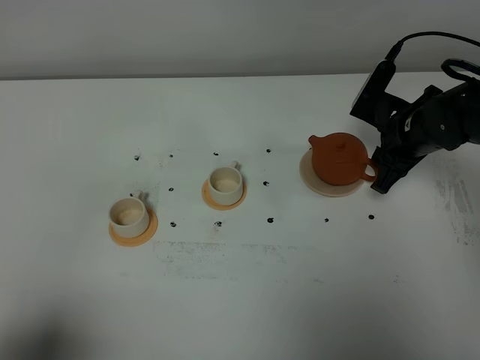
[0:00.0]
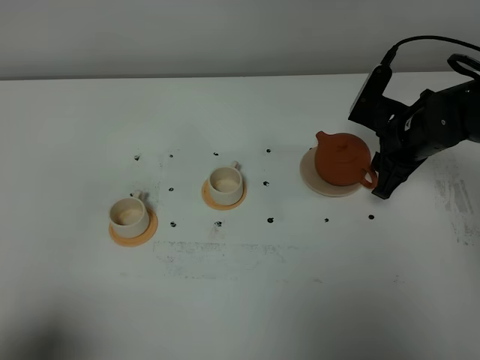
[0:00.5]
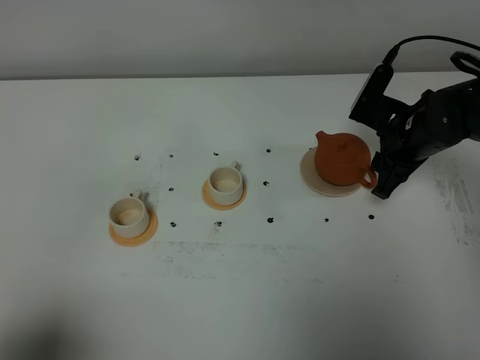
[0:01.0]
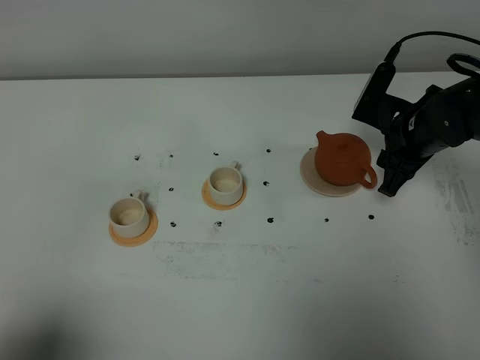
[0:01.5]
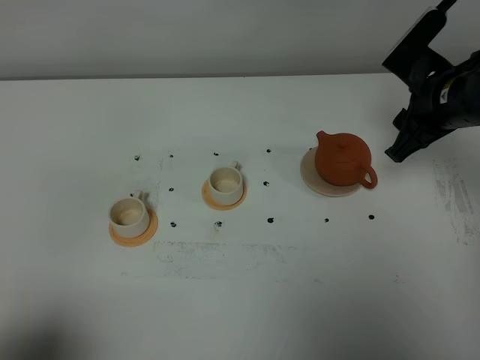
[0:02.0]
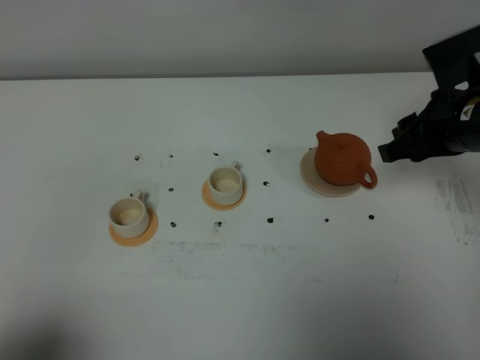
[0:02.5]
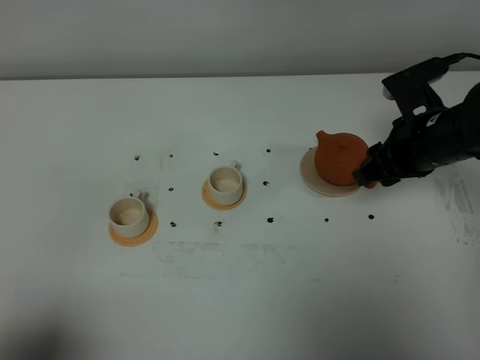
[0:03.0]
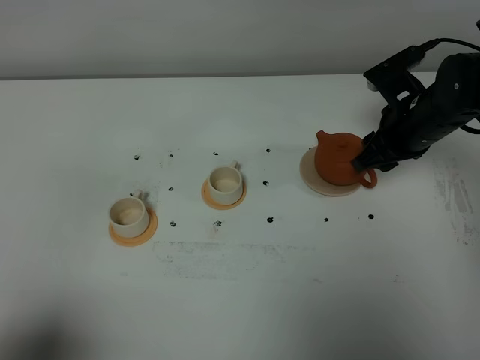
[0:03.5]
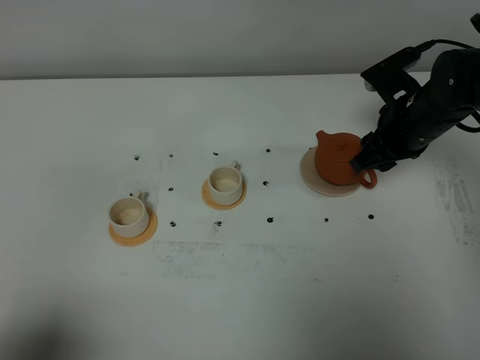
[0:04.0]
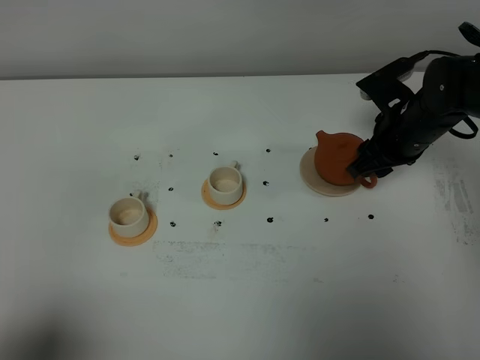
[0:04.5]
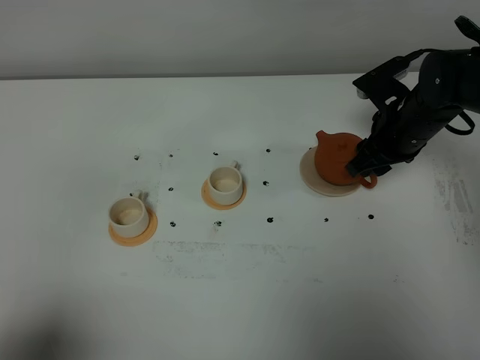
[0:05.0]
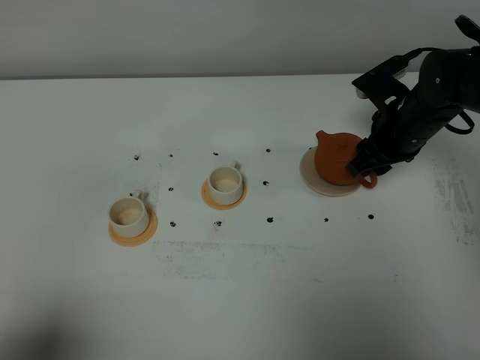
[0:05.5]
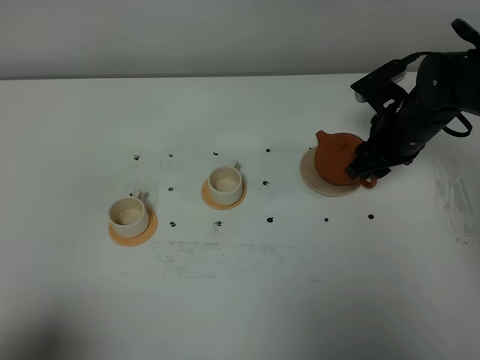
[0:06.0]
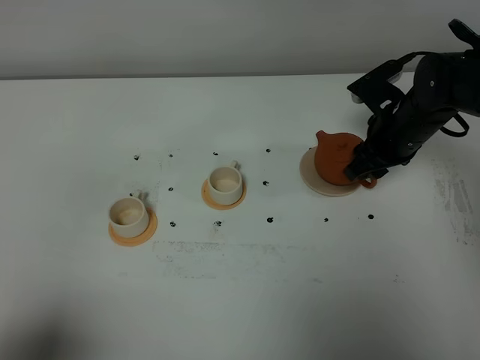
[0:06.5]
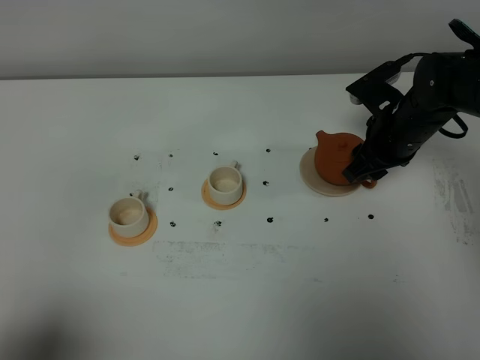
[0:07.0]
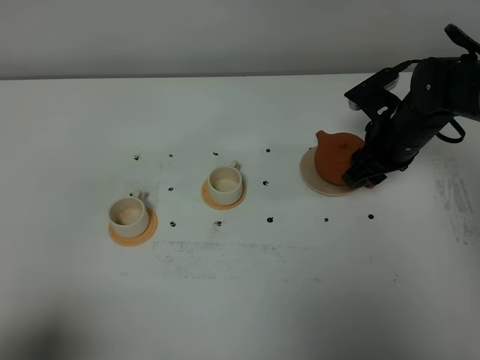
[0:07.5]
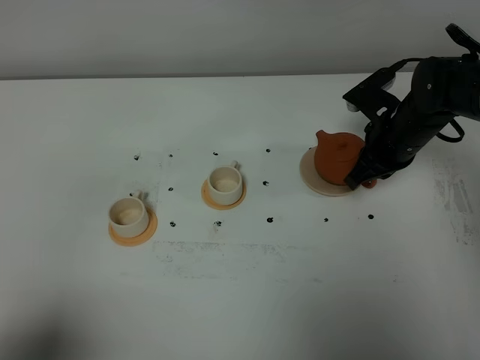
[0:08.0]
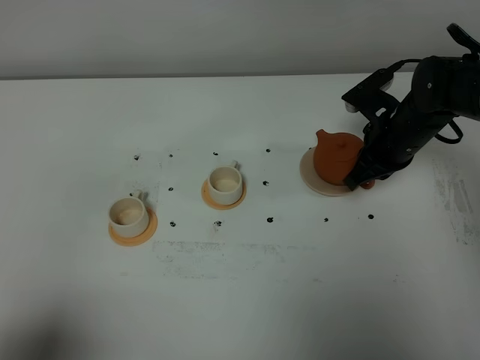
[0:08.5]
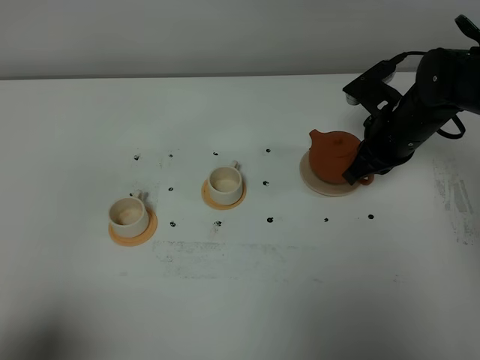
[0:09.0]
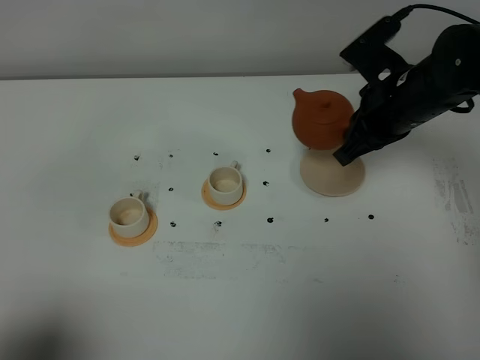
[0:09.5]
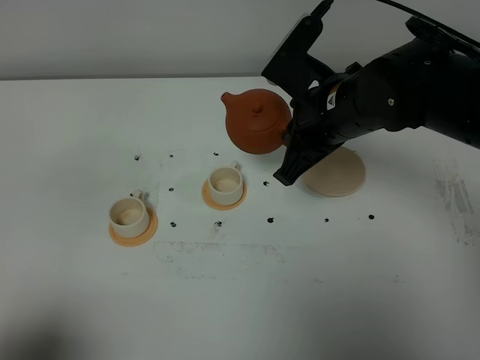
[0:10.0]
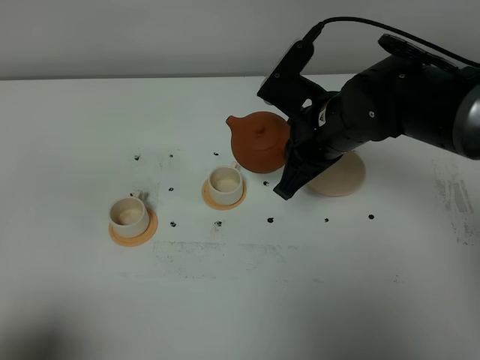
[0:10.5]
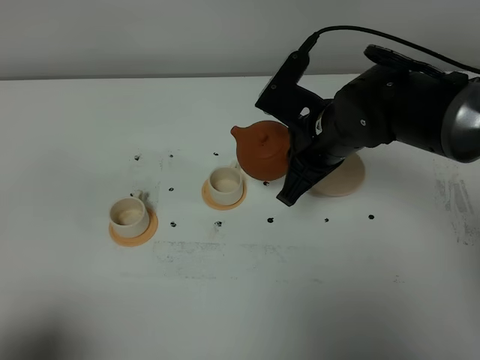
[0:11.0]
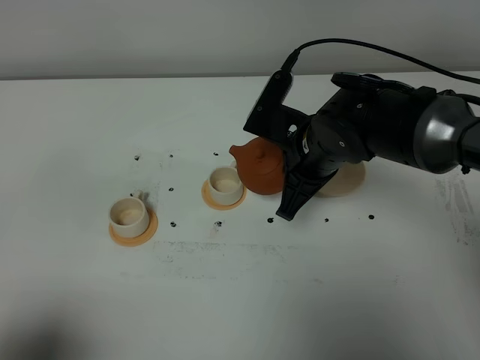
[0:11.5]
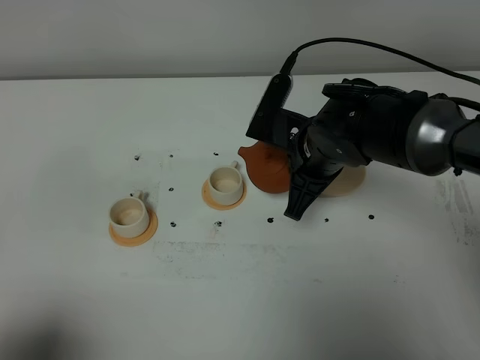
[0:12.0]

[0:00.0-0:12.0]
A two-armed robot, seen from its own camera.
Task of the whole recording: grasp the brown teapot and pour the tea into the two white teacups one by one, put the brown teapot back in its original place.
Step, 0.0 to 8.5 s: Pick up the teapot with the right gripper.
0.0 to 2.0 s: The right gripper heads upward, covering about 10 cm.
2.0 to 4.0 s: The right gripper is displaced downward by some 5 cm.
4.0 to 6.0 s: The grippers make only small movements.
6.0 to 8.0 s: The right gripper closes up.
8.0 to 10.0 s: The right gripper goes approximately 15 cm to the left, upward and backward.
10.0 to 12.0 s: The right gripper moves downward, roughly 5 cm.

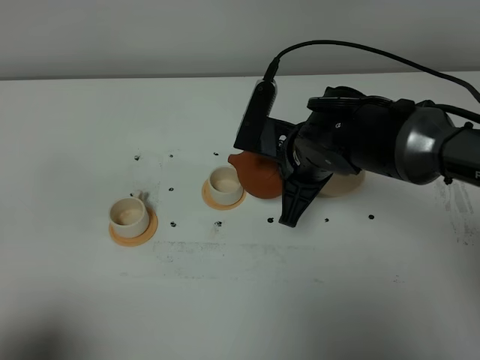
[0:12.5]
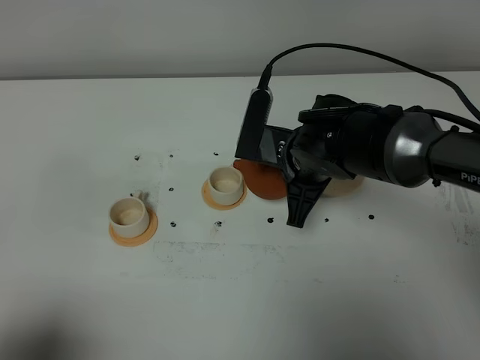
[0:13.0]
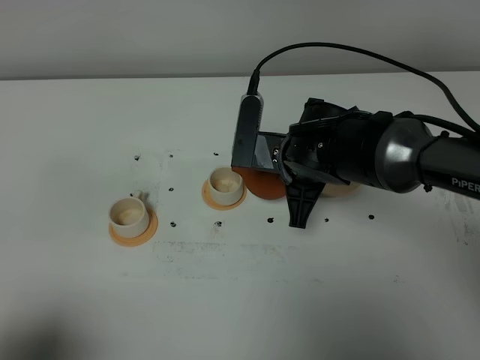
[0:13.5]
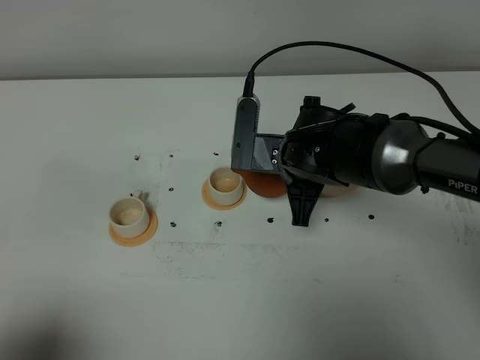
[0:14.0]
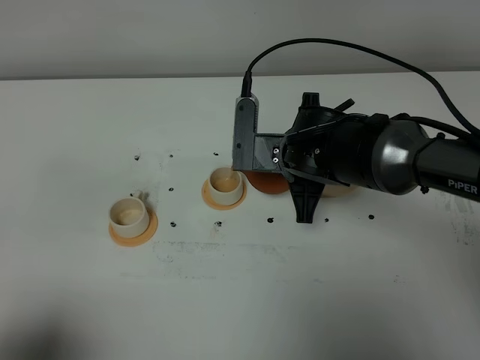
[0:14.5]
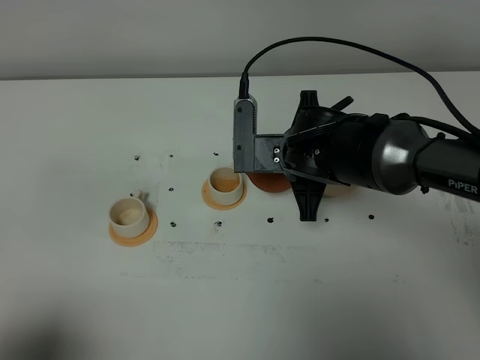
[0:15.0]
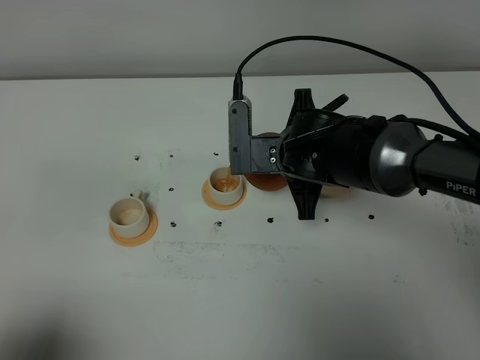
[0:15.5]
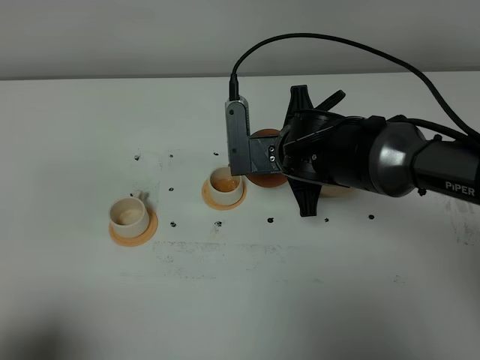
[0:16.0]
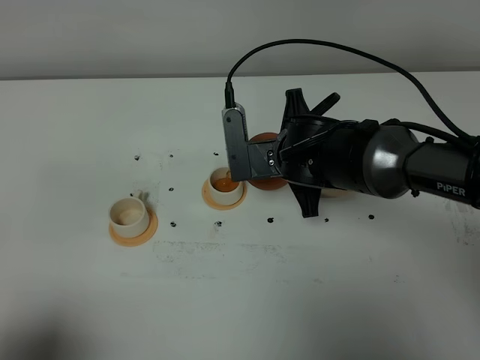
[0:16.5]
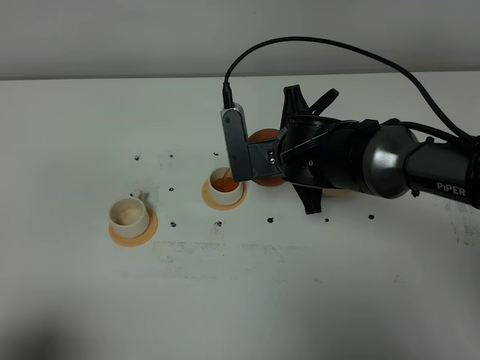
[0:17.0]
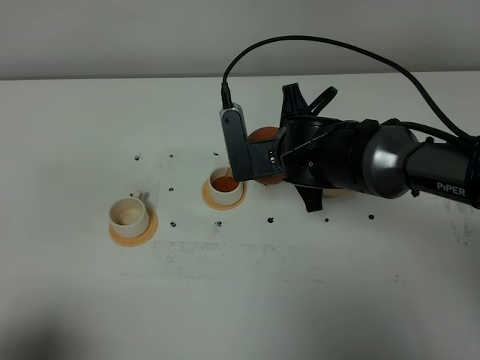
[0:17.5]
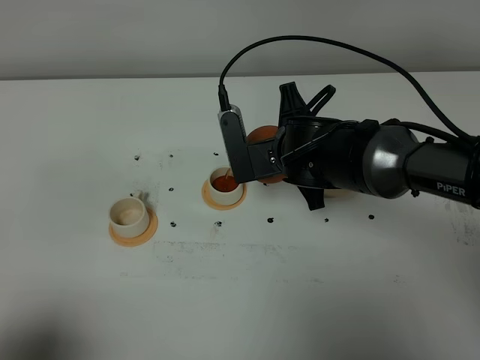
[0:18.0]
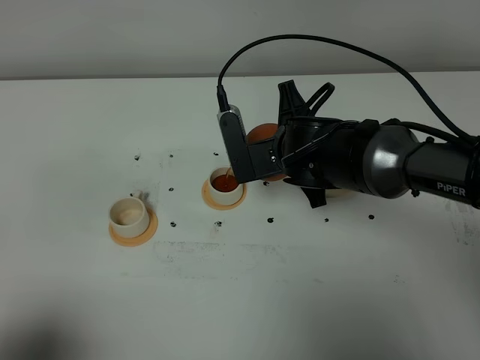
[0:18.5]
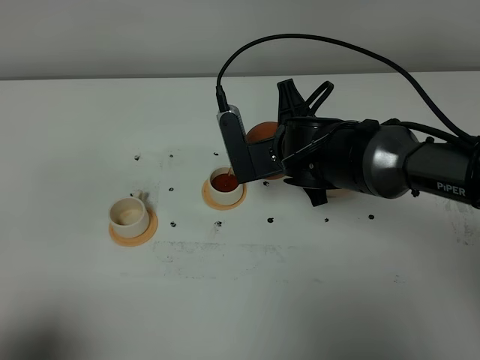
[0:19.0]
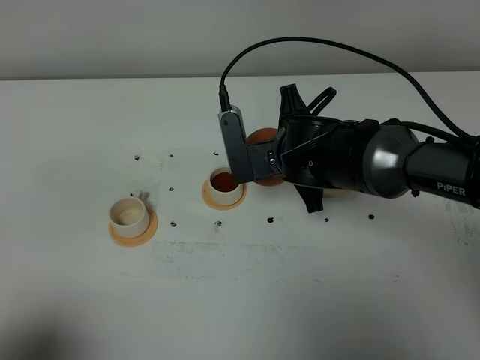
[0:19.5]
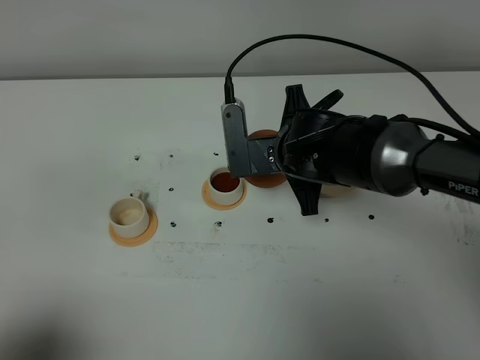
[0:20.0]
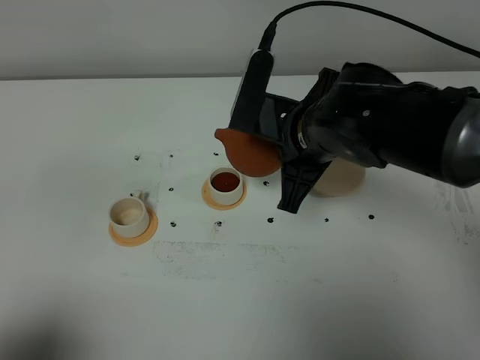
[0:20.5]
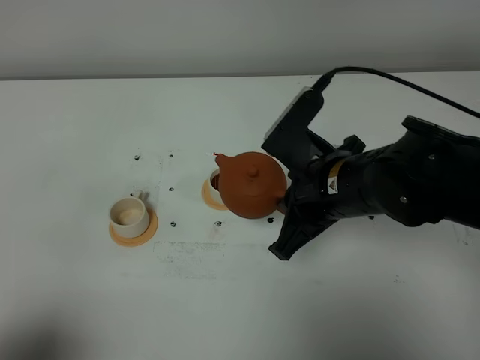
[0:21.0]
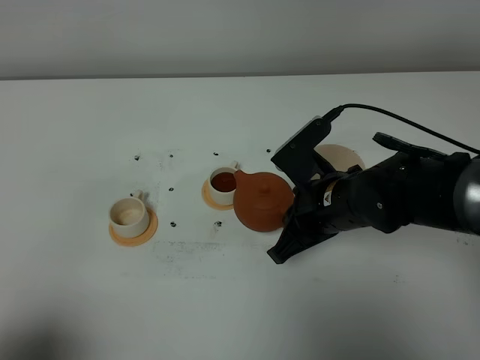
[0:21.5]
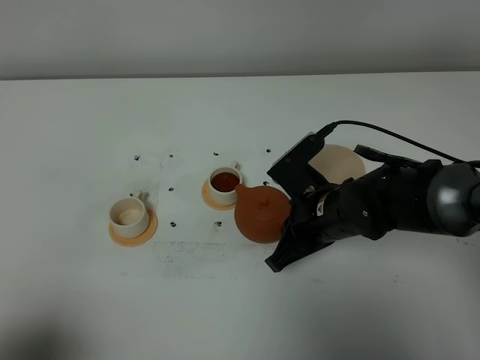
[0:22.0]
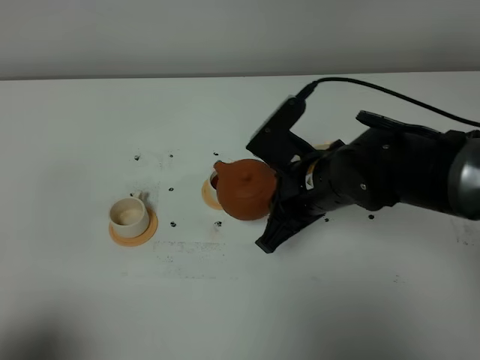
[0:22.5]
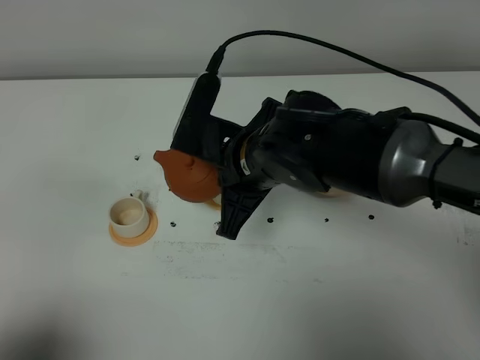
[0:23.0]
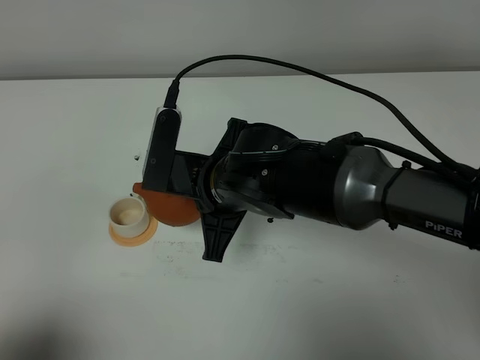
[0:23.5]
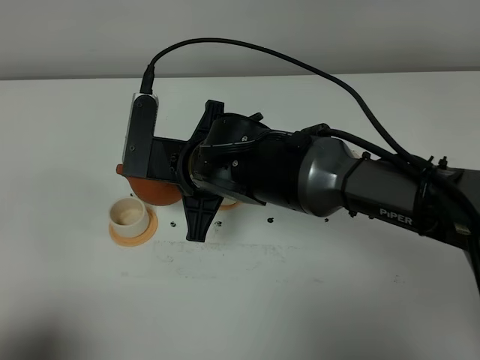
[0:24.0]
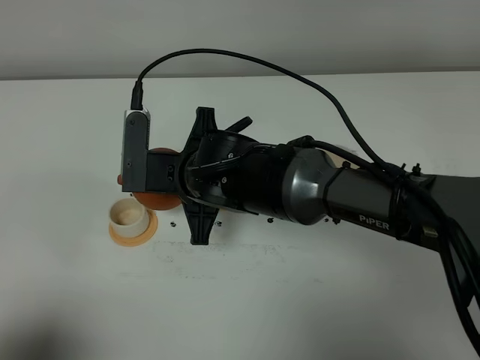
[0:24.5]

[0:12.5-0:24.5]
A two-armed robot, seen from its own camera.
Task of the whole recording: grasp the brown teapot and pour the tea into the two white teacups one by one, put the brown teapot back in its original place.
12.5 to 14.5 s: There are only small adjustments of the grippers.
14.5 to 16.5 s: There are only small adjustments of the grippers.
16.5 to 18.5 s: The grippers stay close to where they were, moving slightly.
18.5 to 20.5 s: The right gripper shifts about 5 cm upward.
22.5 to 24.5 s: The right gripper travels to the left by approximately 10 cm.

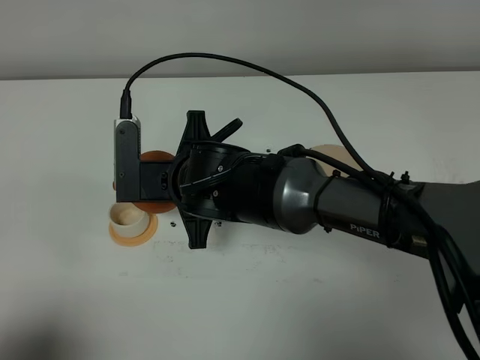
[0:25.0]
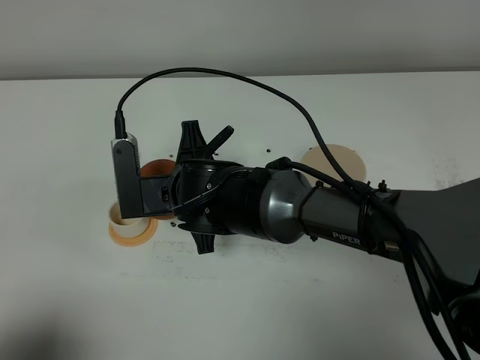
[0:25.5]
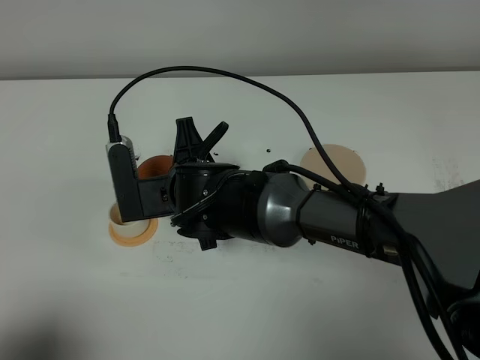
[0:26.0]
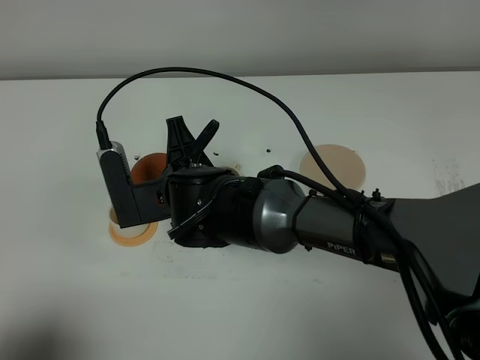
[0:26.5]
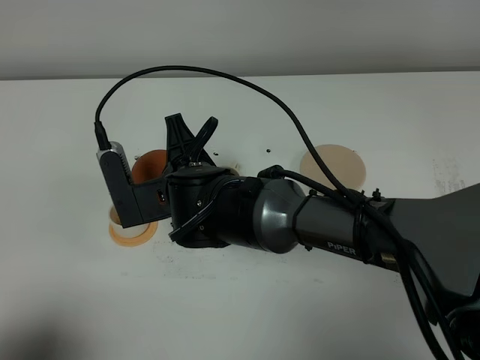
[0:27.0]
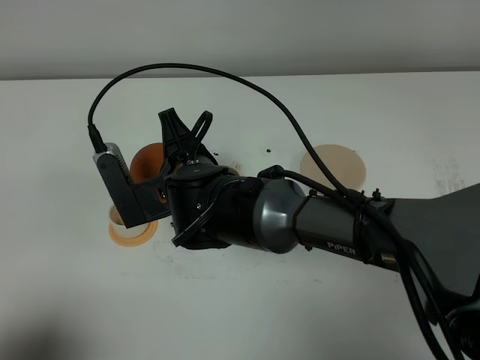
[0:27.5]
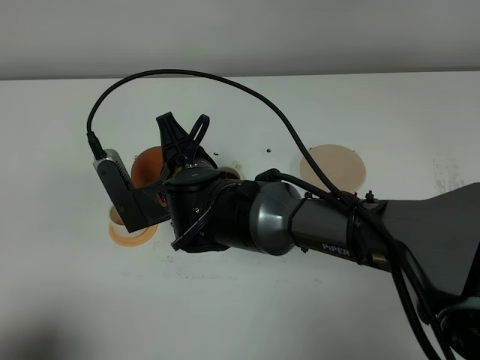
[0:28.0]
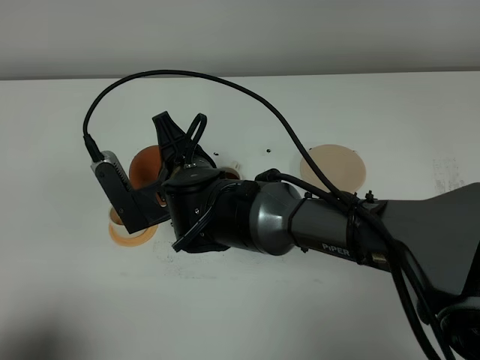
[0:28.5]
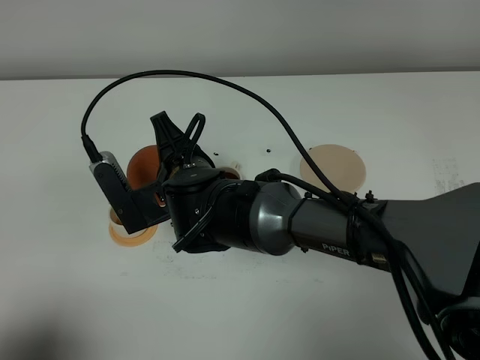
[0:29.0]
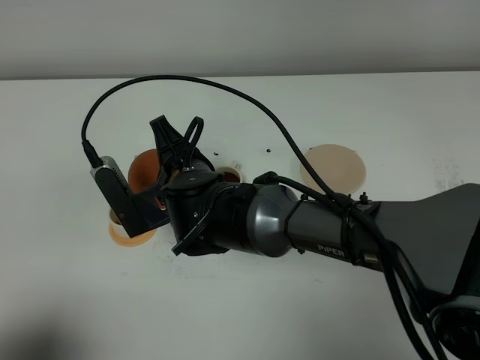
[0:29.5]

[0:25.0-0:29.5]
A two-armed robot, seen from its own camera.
Task of the whole recording: grasp the brown teapot and pour the tea into the two white teacups one by one, put the brown teapot back in its original place.
25.0 to 27.0 s: The grippers make only small movements.
27.0 to 29.5 s: The grippers stay close to where they were, moving slightly.
